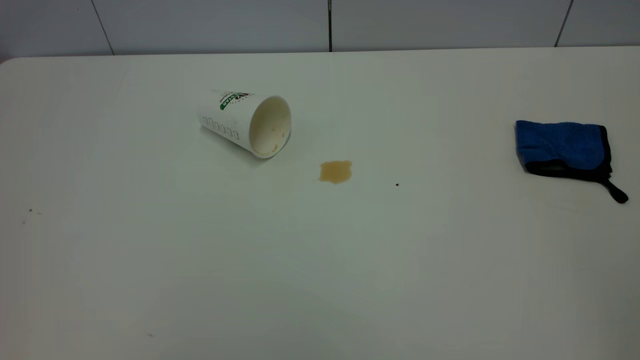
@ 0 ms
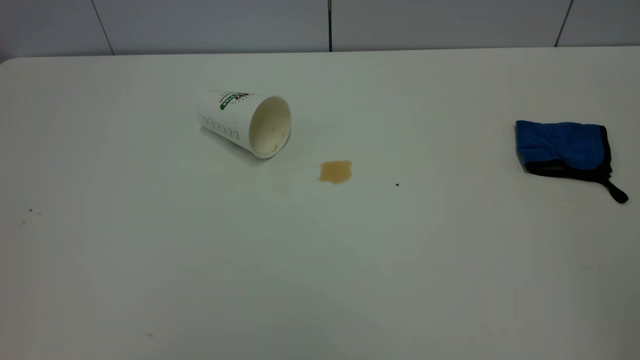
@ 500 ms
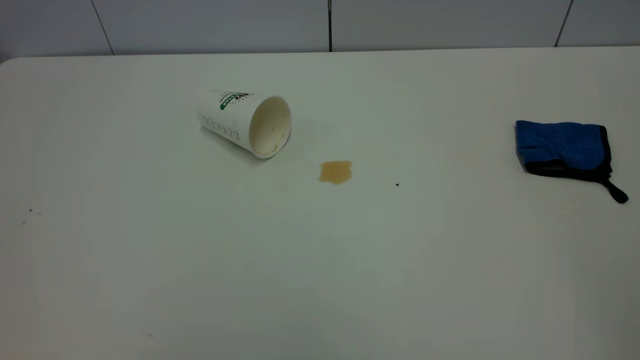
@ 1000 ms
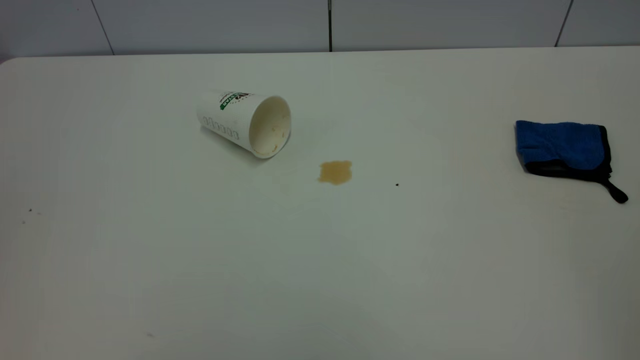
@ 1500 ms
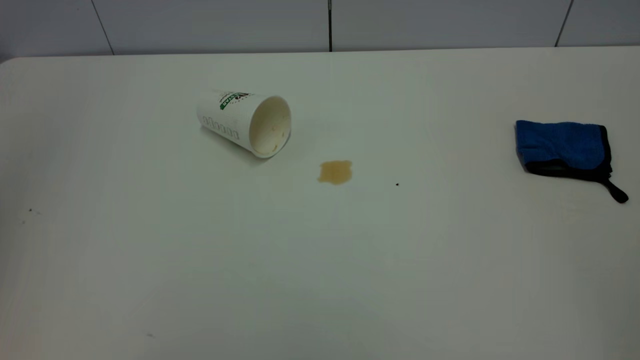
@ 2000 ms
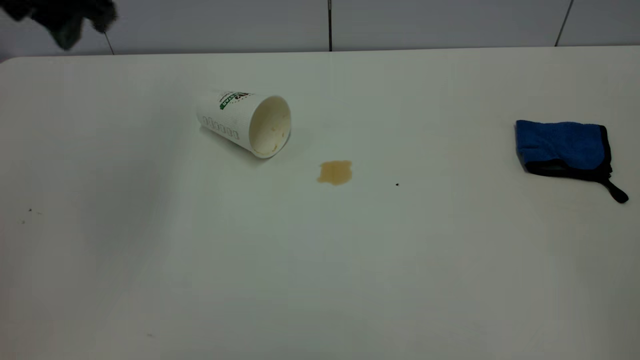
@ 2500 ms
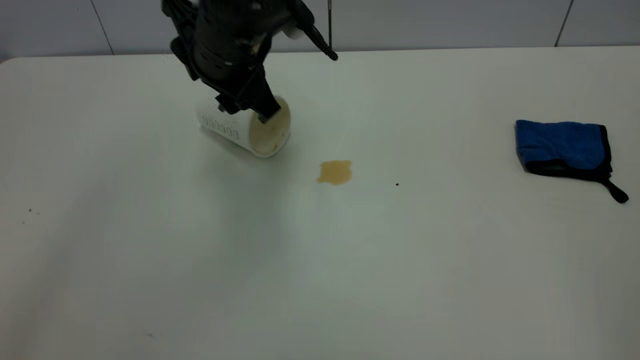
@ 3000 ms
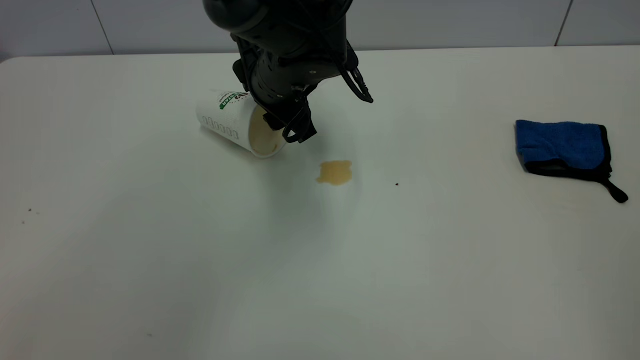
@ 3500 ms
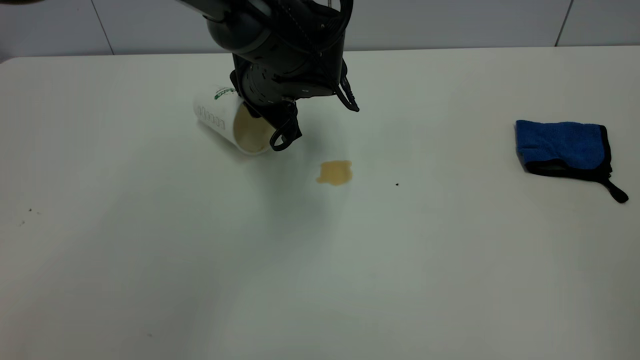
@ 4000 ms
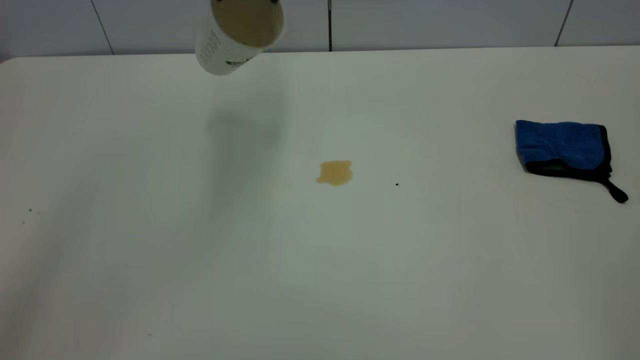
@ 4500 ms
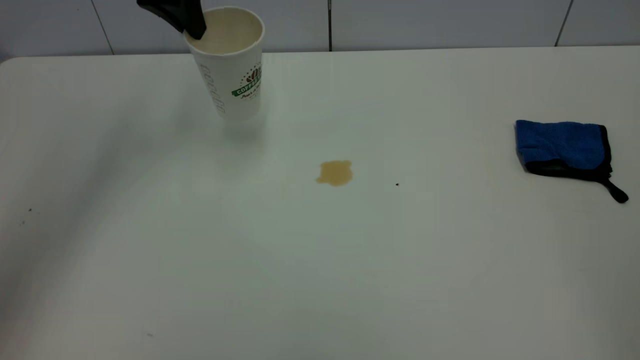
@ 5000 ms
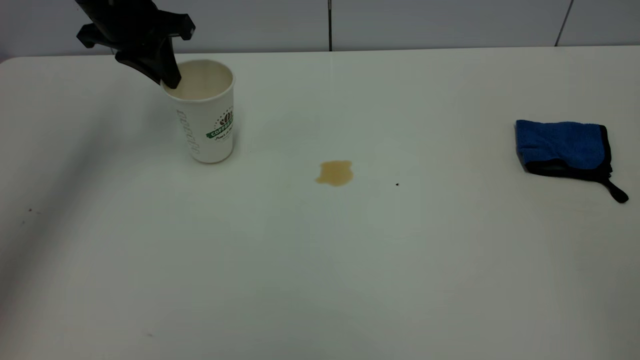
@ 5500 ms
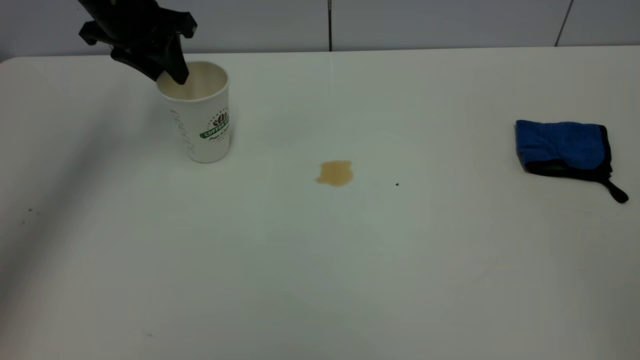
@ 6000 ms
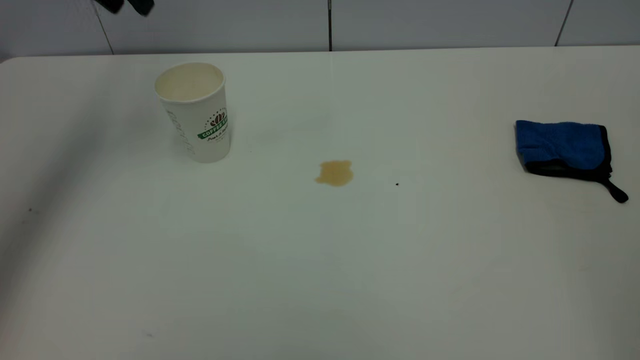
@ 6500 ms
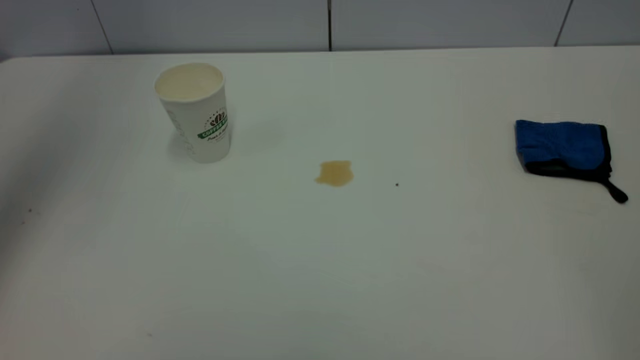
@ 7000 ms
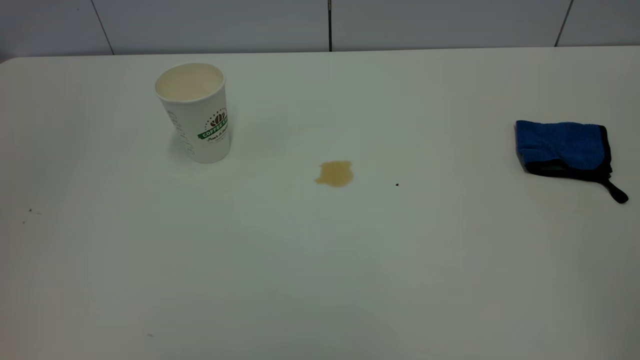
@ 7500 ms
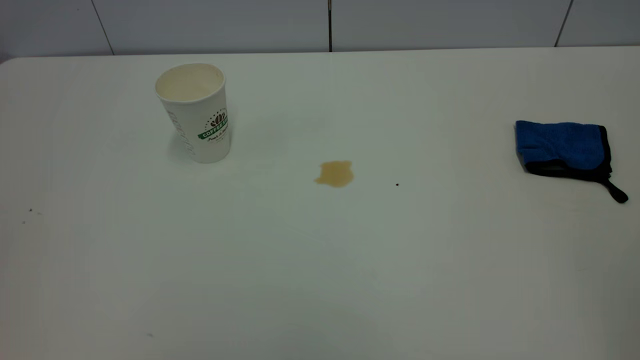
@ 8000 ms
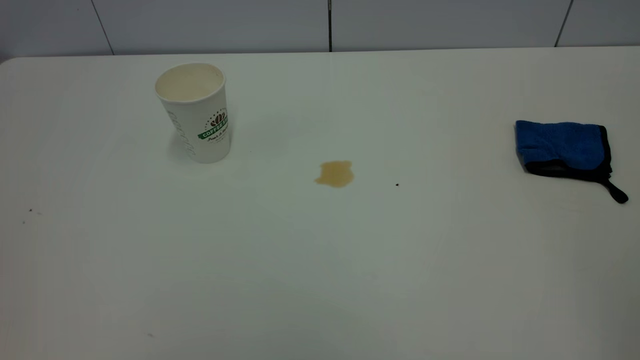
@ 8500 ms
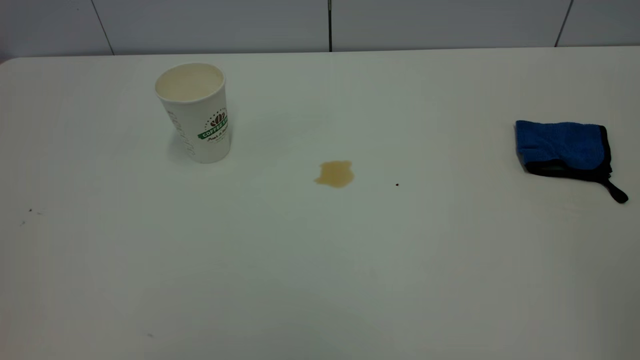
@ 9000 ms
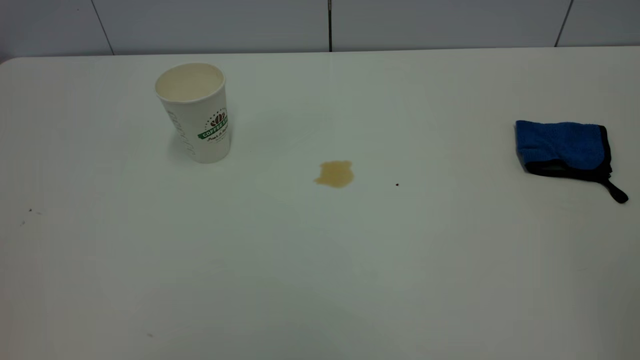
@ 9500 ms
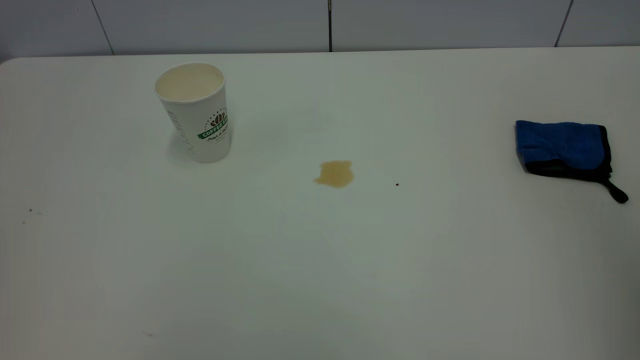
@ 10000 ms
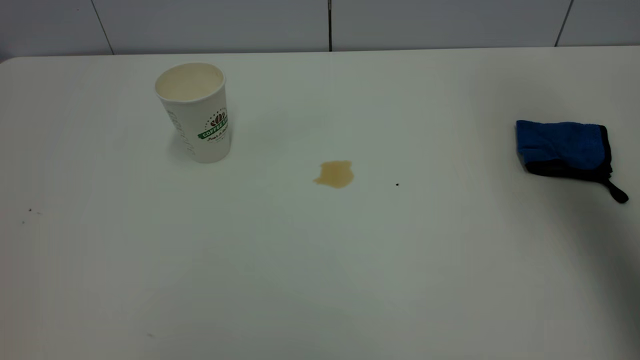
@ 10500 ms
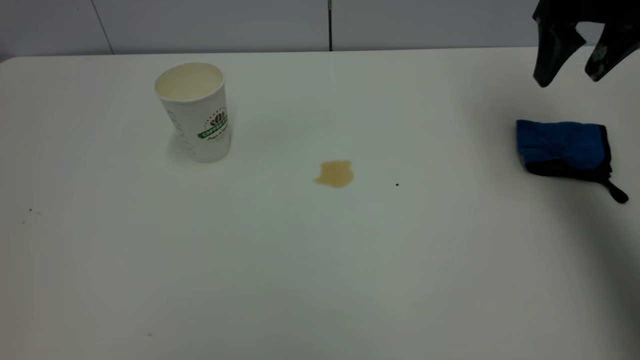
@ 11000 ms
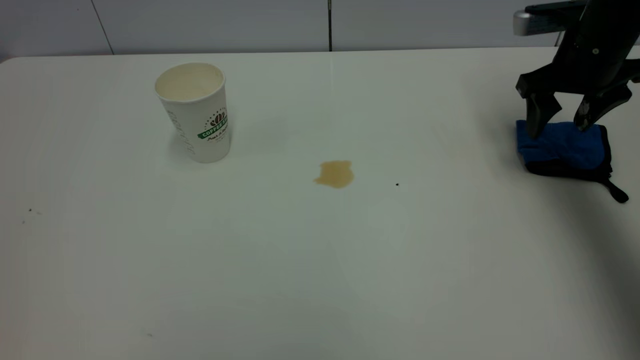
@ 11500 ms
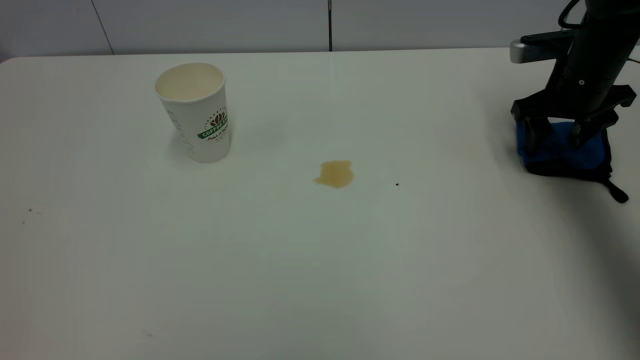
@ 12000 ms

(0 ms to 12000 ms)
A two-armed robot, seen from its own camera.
Task of the whole recording: the left gripper pick up the fallen cup and place it upright, the right gripper grasp the blue rag and wipe the tea stain on the table, the right gripper put the blue rag back in its original position.
Step, 0 ms - 6000 ms: Stand the paper cup upright.
2000 ms - 4000 ms: The left gripper heads to the right, downward and forward, covering approximately 40 cm, and closes.
4000 ms - 6000 ms: The left gripper travels to the left and upward by approximately 20 cm, and opens up.
6000 ms - 8000 ms: The left gripper shifts approximately 50 cm backward.
10000 ms - 12000 ms: The right gripper moves downward and forward, about 50 cm.

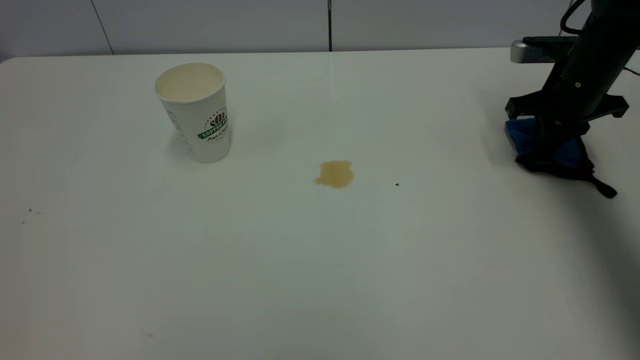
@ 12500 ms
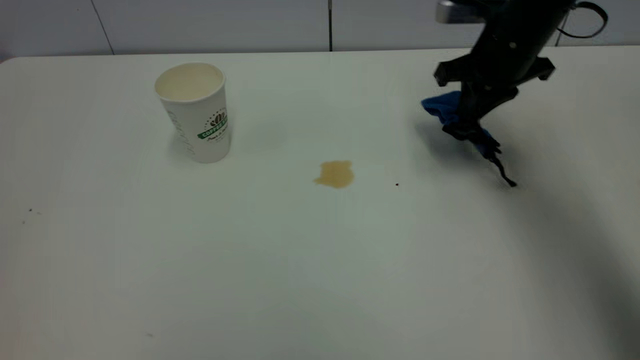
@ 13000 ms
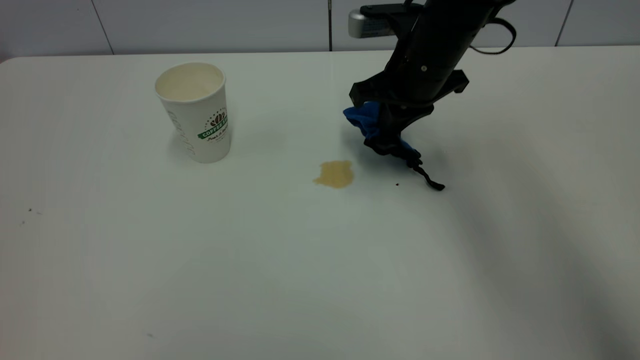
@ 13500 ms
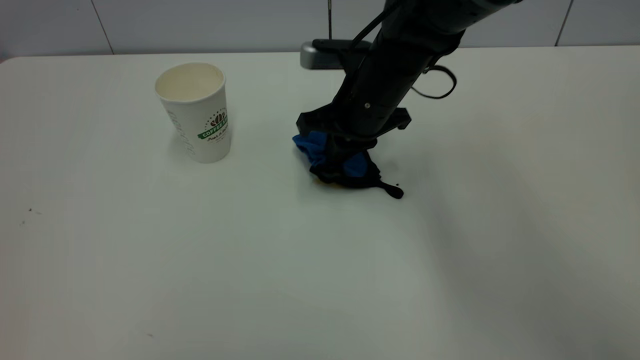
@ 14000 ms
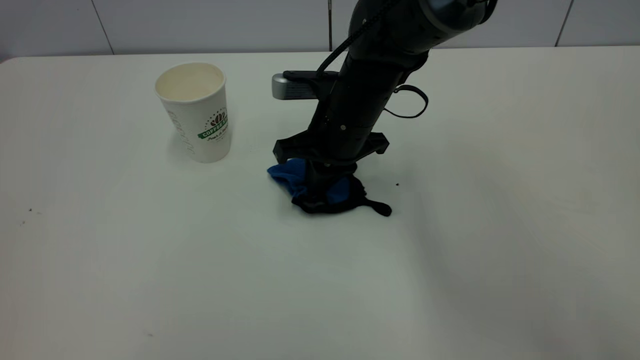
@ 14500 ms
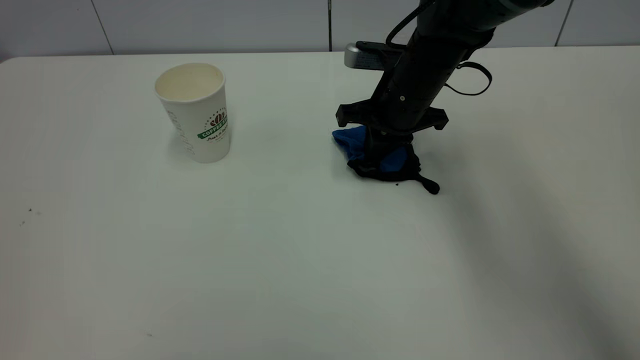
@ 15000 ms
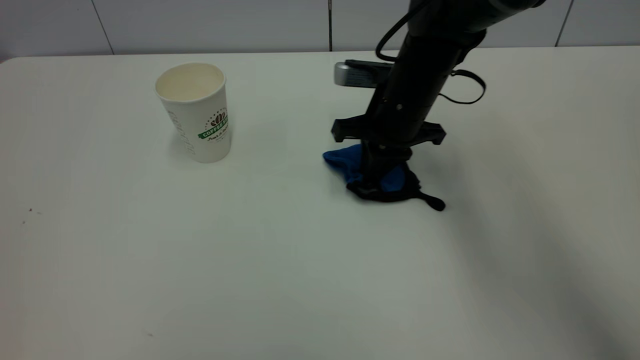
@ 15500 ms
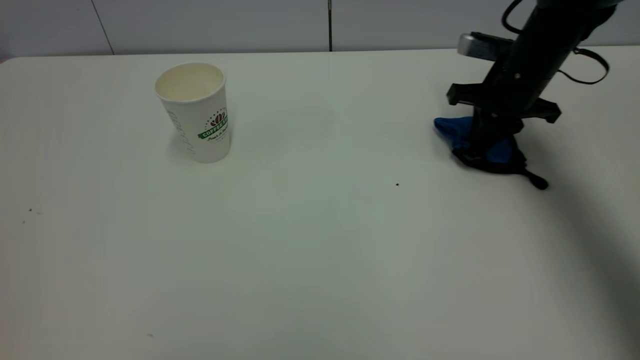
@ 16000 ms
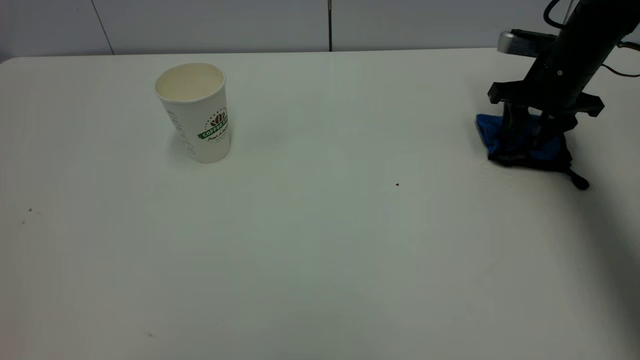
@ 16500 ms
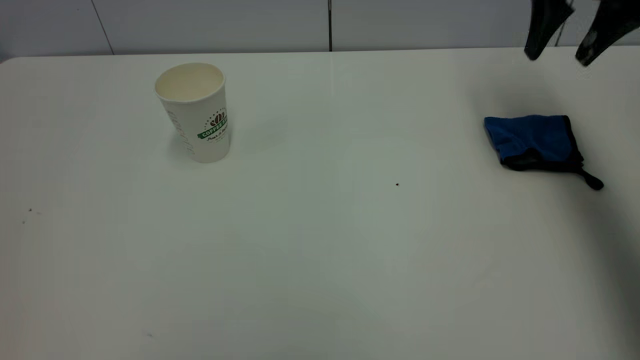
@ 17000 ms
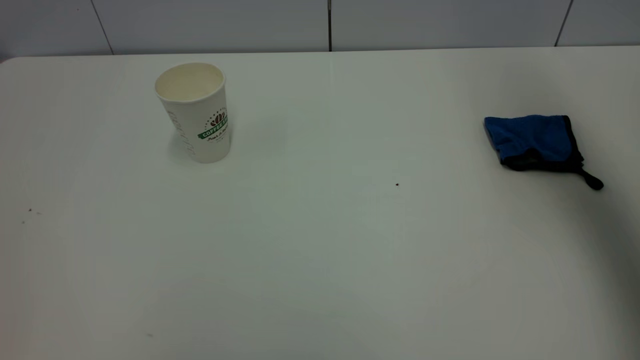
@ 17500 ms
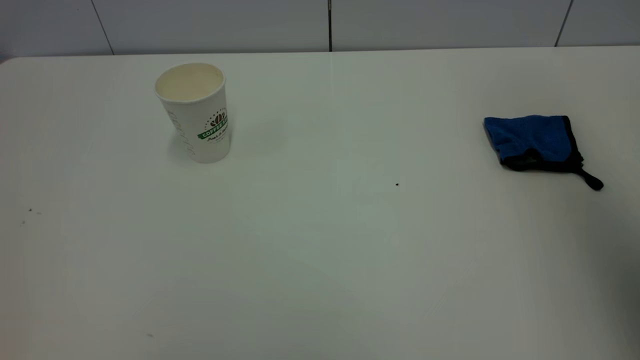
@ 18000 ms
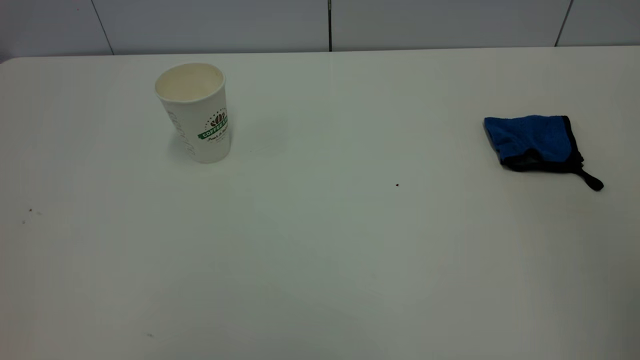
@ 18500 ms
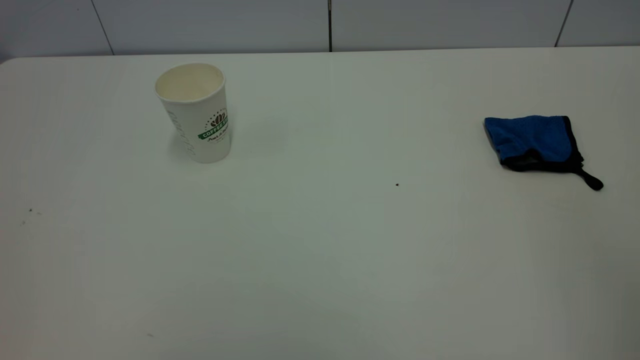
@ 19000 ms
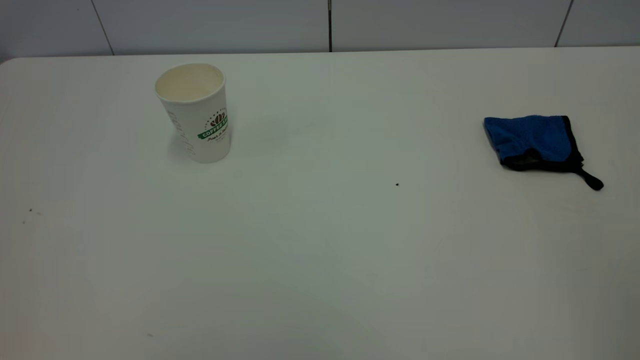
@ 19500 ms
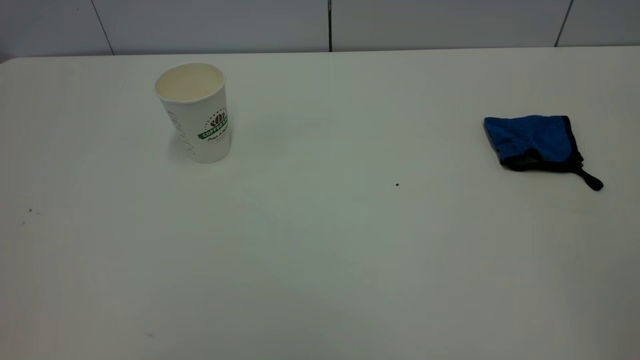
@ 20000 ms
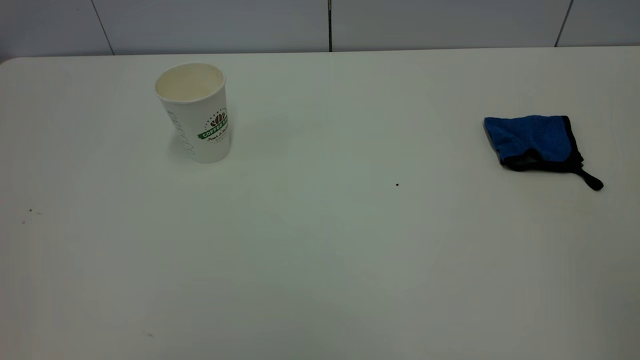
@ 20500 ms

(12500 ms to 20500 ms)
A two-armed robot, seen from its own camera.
Task of the whole recording: the left gripper pick up the fallen cup and place it upright, the right gripper grasp the blue rag and wipe the tea stain on the table, the right gripper put the blue rag back in its original position.
Step, 12500 ms - 16500 ms: Wipe the stains off the table with a rag.
12500 ms - 14500 ms: The right gripper goes approximately 25 cm to the left.
14500 ms - 16500 ms: The right gripper is displaced to the right by about 25 cm, and opens up.
16500 ms - 18500 ms: The right gripper shifts roughly 50 cm backward and upward.
